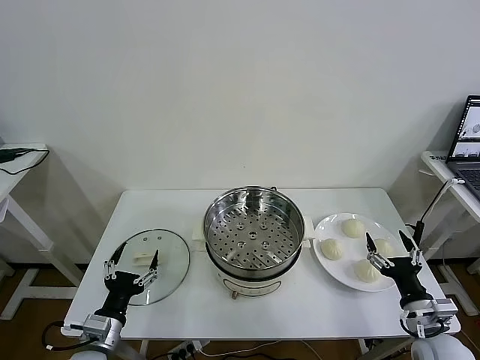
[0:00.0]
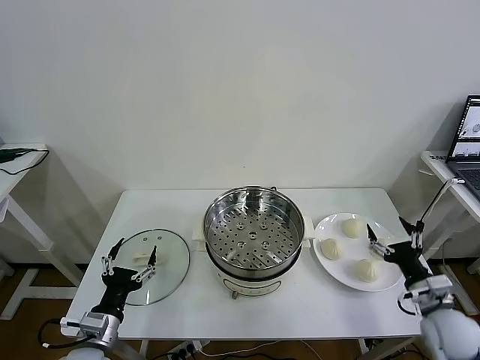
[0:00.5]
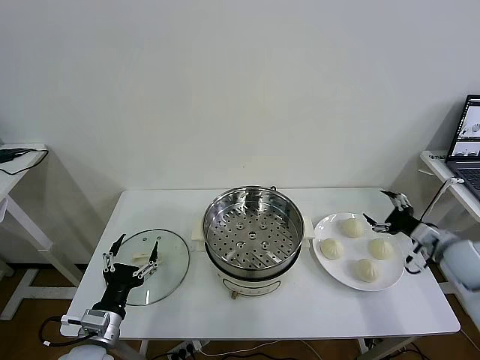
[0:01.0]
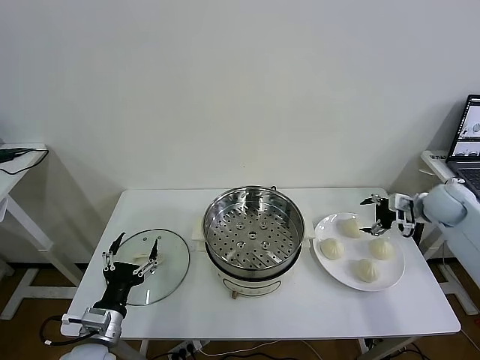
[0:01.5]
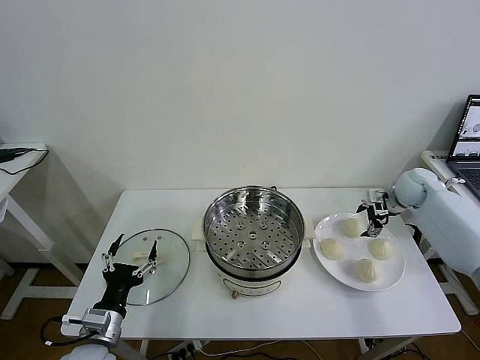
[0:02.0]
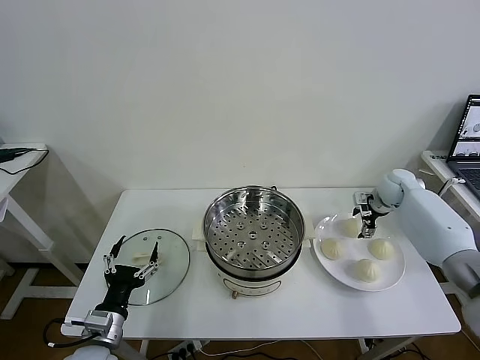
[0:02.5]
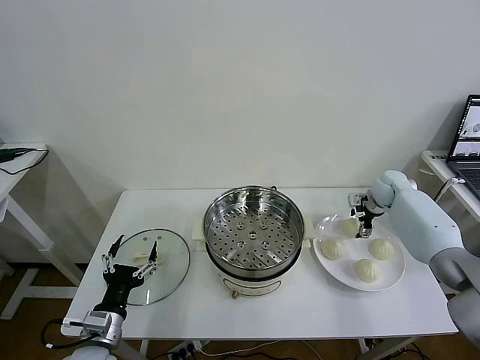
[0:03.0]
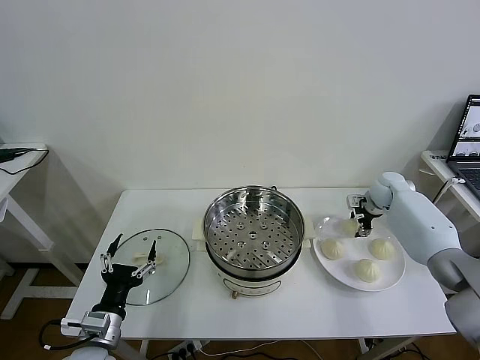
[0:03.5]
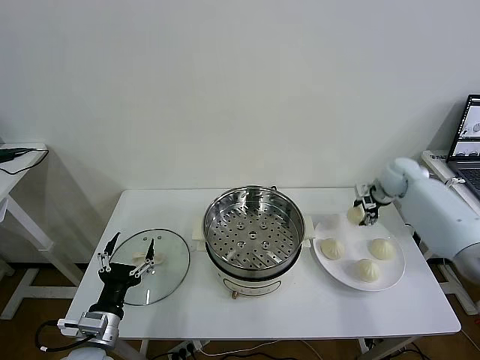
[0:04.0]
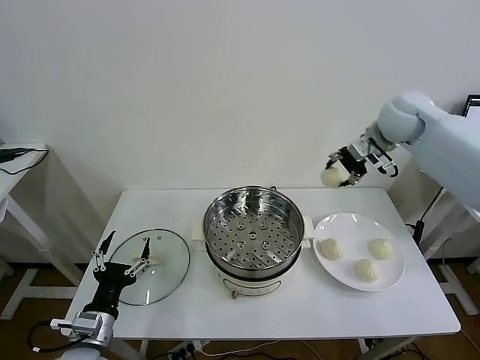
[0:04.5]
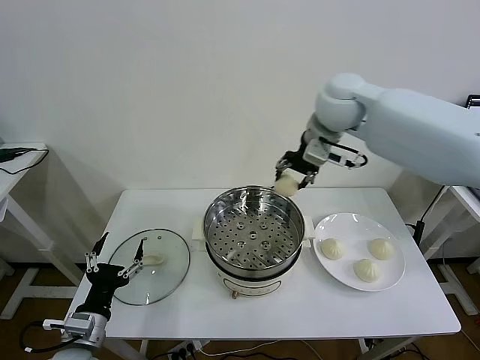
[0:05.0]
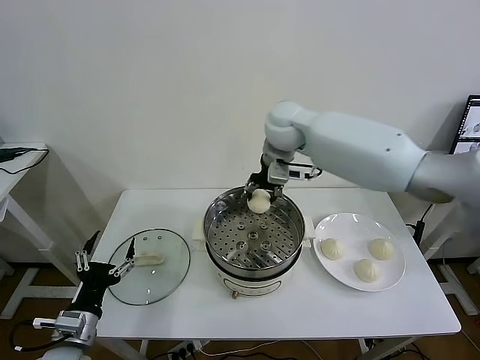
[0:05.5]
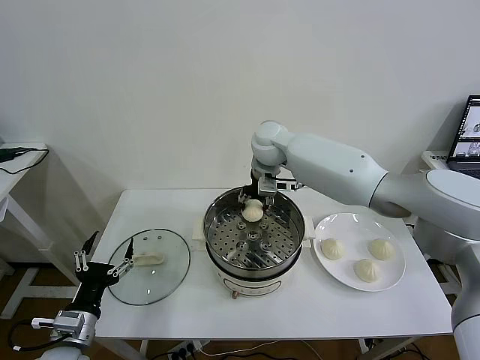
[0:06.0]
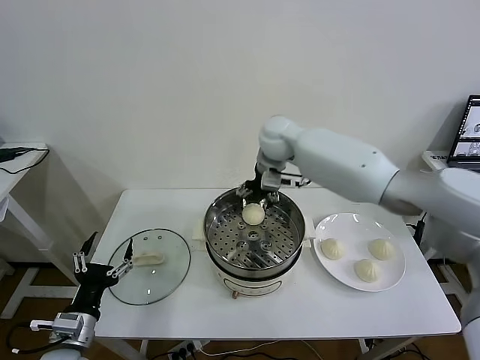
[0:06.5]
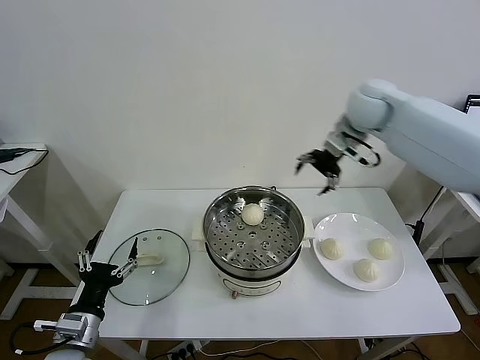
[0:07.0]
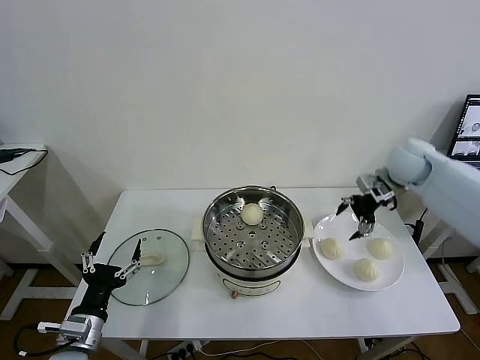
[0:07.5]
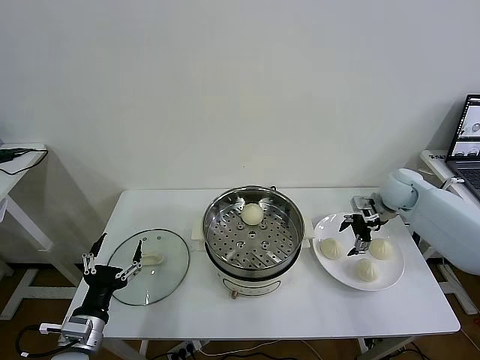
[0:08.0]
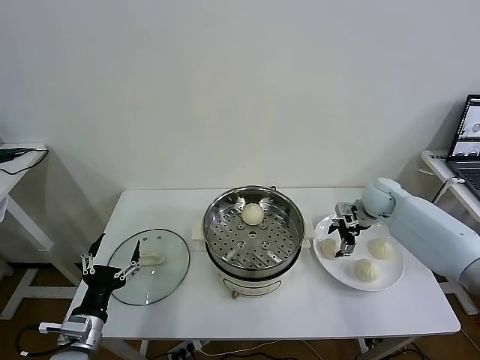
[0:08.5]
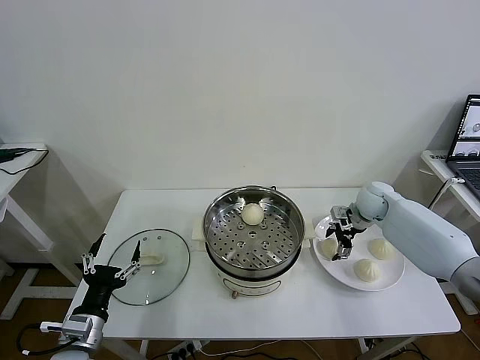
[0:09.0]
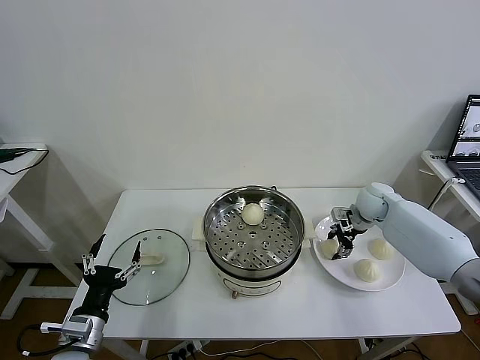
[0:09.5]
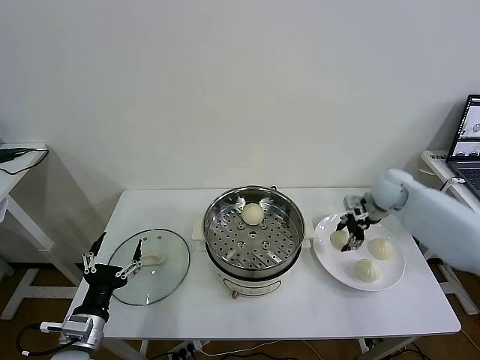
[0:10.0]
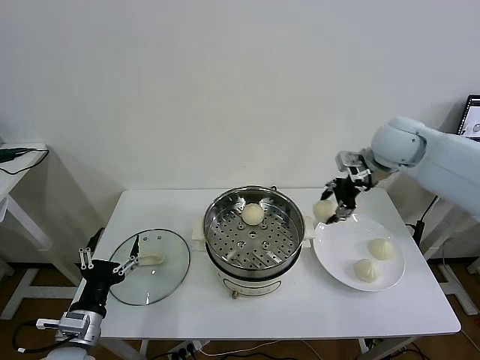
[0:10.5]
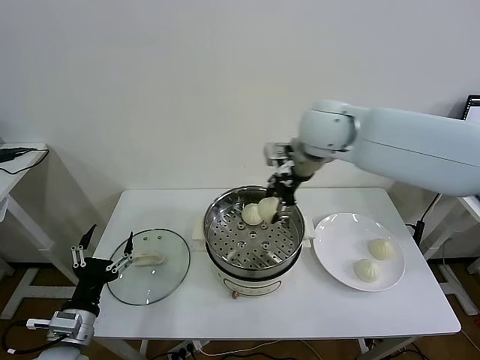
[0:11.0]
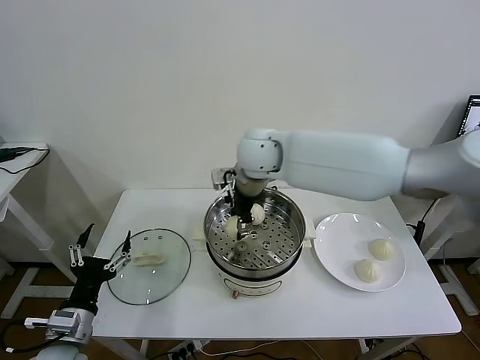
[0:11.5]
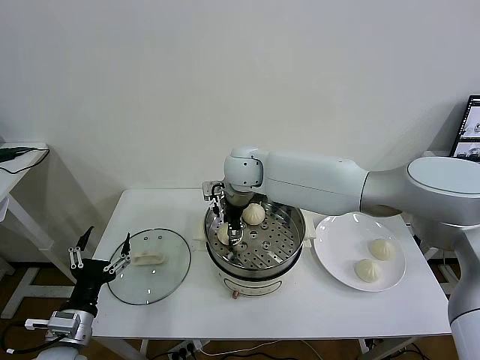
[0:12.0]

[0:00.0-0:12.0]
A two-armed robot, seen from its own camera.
Task of the whole recording: take steamed baozi put them in steamer then cover it.
Step, 0.0 to 3.0 s: Grasp the baozi in the plate with right gripper.
Step, 3.5 to 6.0 s: Place the baozi on the steamer with right gripper.
Step, 6.5 to 9.0 s: Grasp the baozi in the plate with right gripper.
2.0 to 4.0 s: The right gripper travels upward by some 5 cm, and closes its fingers.
4.0 to 6.0 s: The right gripper moves to the left, approximately 35 cm.
6.0 to 8.0 s: The right gripper moves to the right, roughly 30 cm, and opens.
8.0 to 10.0 s: The right gripper closes its fingers.
10.0 to 12.0 s: The right gripper goes some 35 cm to the left.

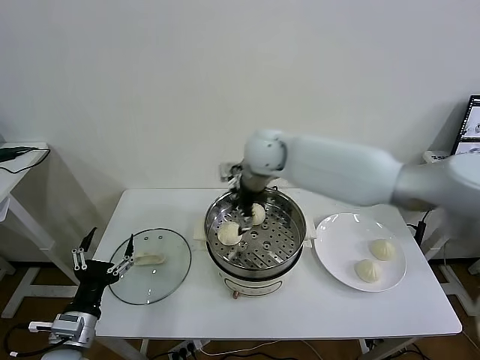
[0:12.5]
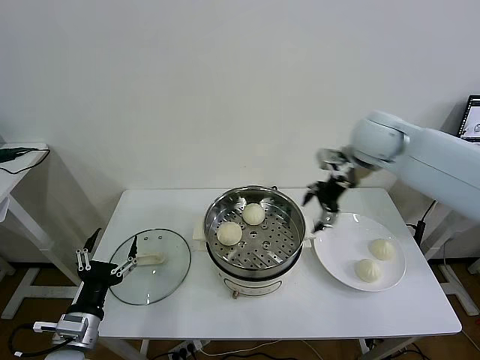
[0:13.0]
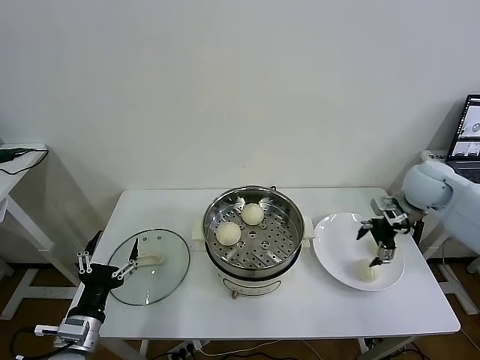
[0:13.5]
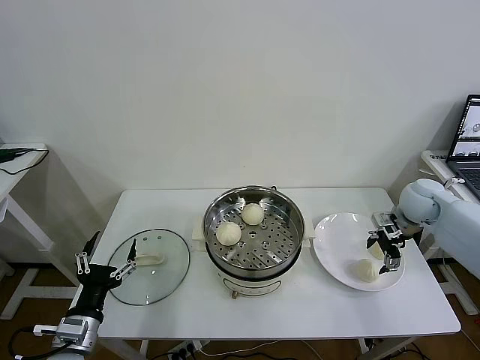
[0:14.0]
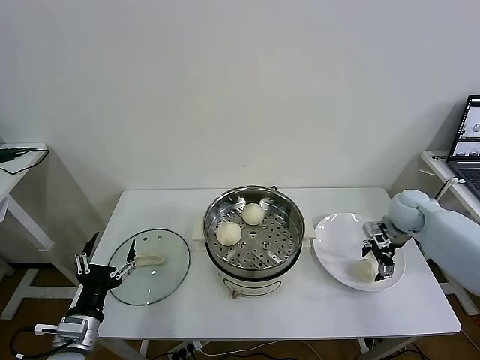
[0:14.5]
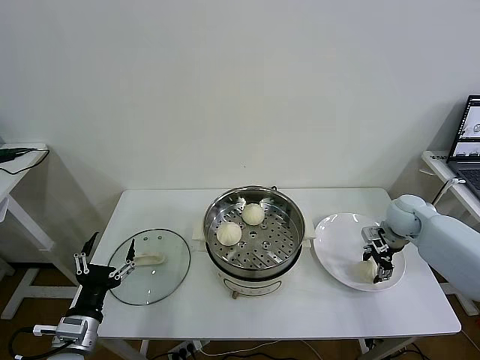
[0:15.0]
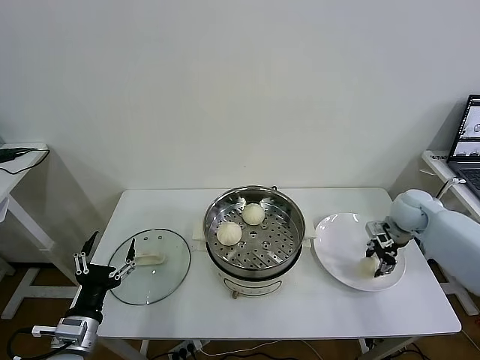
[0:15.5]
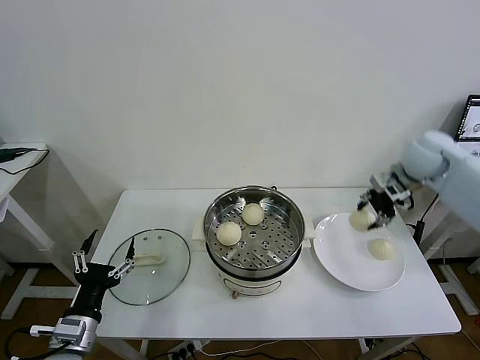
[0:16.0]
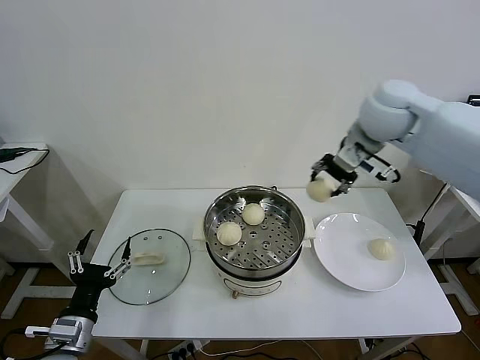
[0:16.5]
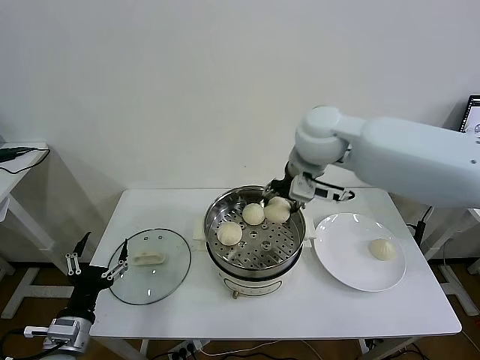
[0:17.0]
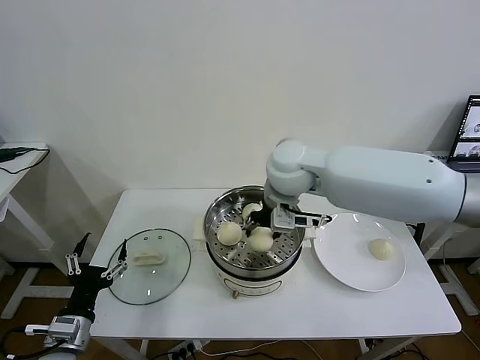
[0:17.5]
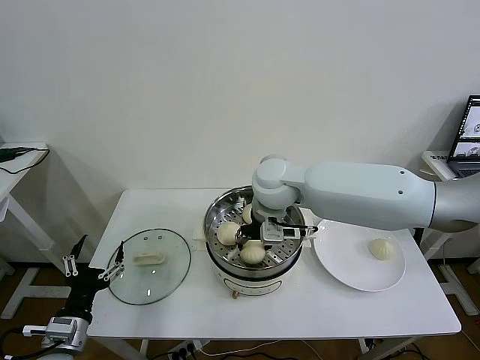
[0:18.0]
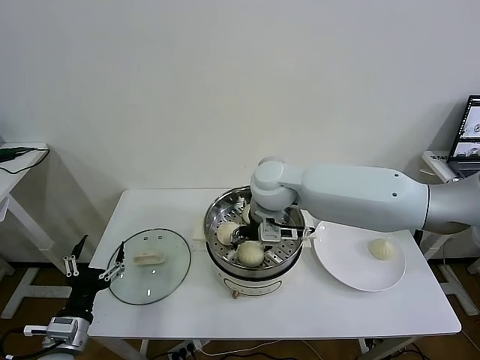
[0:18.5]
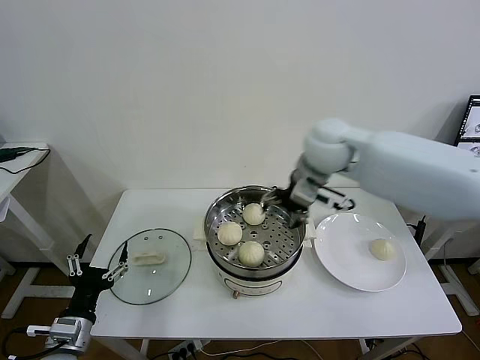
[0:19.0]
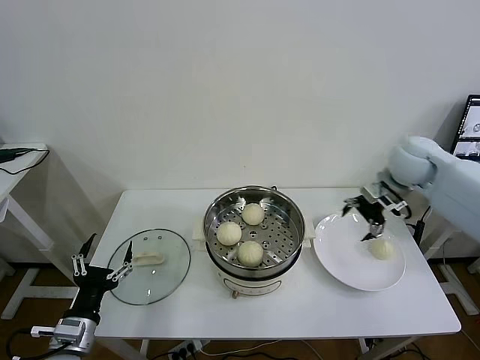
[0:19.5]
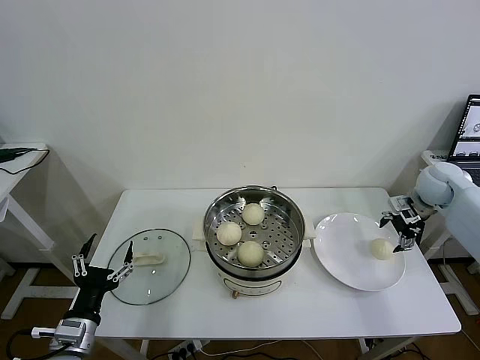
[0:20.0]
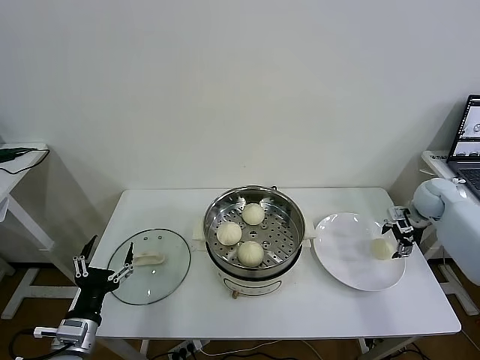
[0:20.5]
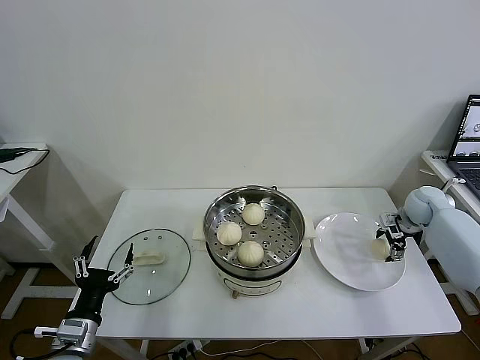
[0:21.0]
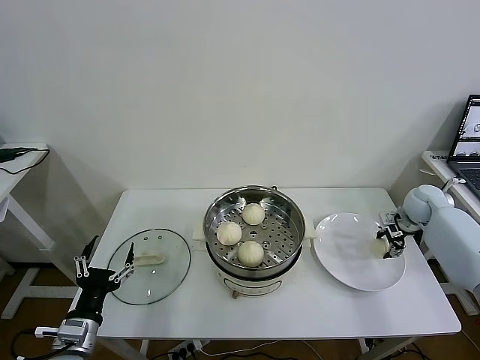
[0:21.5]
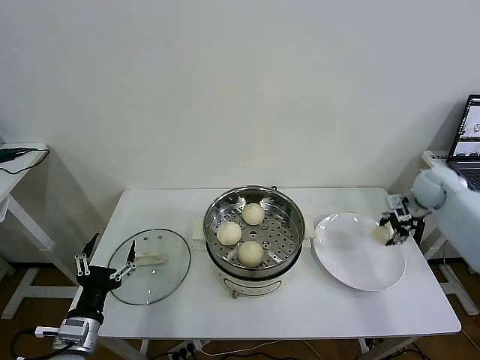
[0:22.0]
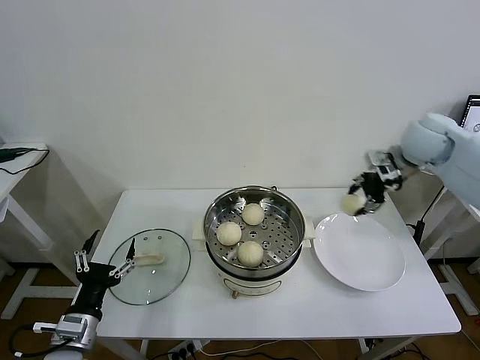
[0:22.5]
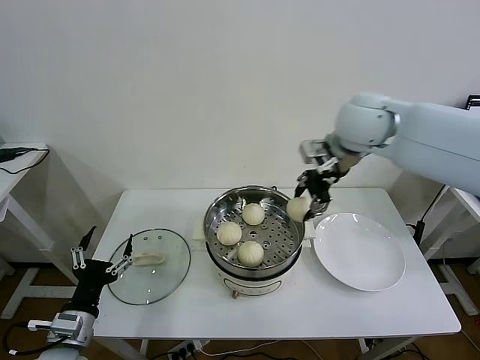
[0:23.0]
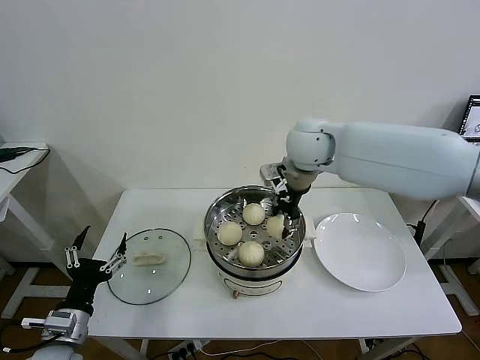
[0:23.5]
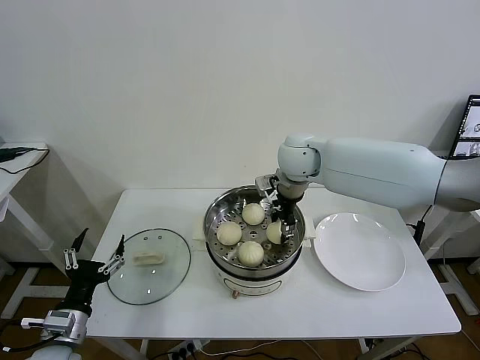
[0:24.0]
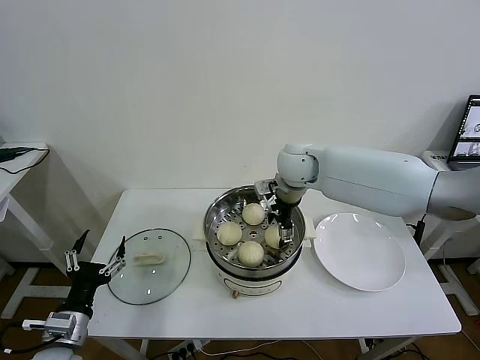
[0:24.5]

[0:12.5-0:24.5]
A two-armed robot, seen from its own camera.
Task of the whole recording: take steamed baozi put them in steamer then cover it.
Step, 12.5 to 15.0 s: Grasp the baozi in the plate with right gripper.
Step, 15.5 to 18.5 s: Place the baozi on the steamer with right gripper.
Step, 19.0 to 21.0 s: Grasp the baozi in the plate with right gripper.
Step, 22.0 to 24.5 s: Place the baozi on the steamer with right gripper.
12.5 to 14.5 s: The right gripper goes about 40 cm to the right and downward.
14.5 to 16.5 s: The right gripper shifts some 30 cm upward and to the left, and closes.
16.5 to 18.5 s: The right gripper shifts roughly 20 cm to the left and downward, and opens up.
18.5 to 20.5 s: The right gripper is displaced to the right by some 40 cm.
20.5 to 22.5 s: The right gripper shifts about 25 cm upward and to the left, and closes up.
22.5 to 24.5 s: The right gripper goes approximately 25 cm to the left, and opens.

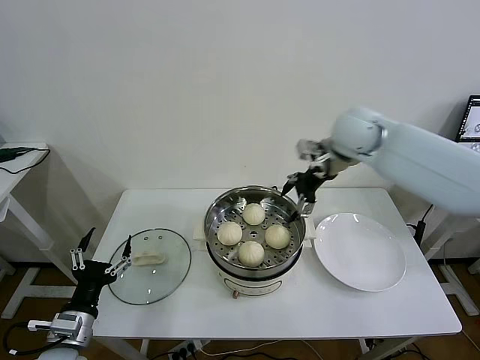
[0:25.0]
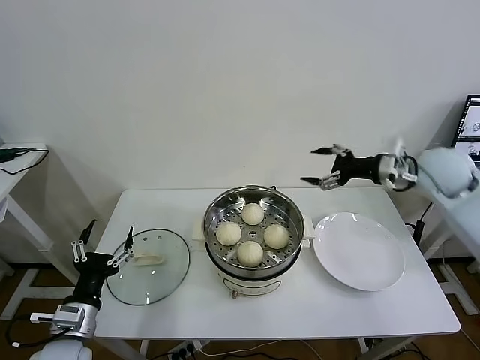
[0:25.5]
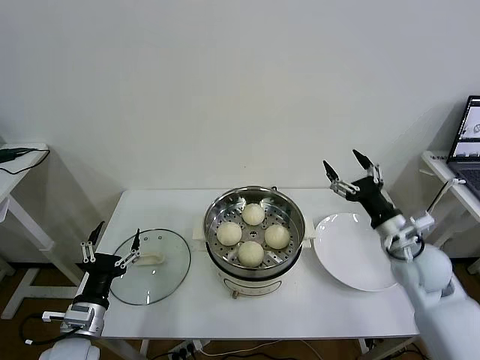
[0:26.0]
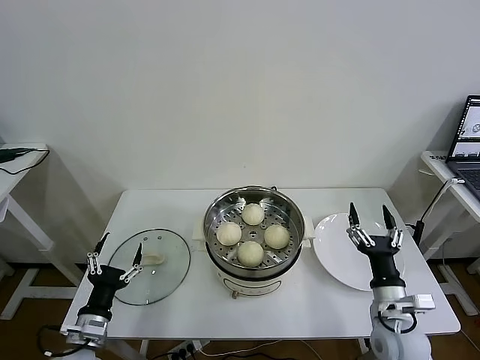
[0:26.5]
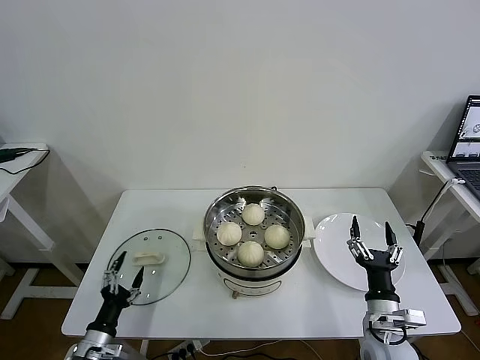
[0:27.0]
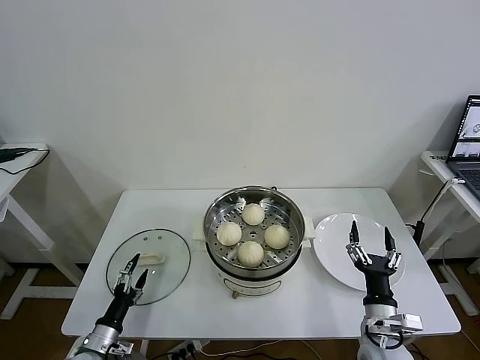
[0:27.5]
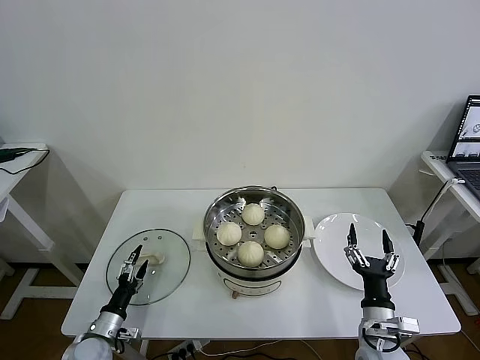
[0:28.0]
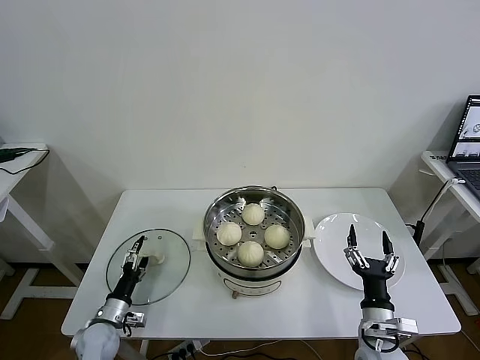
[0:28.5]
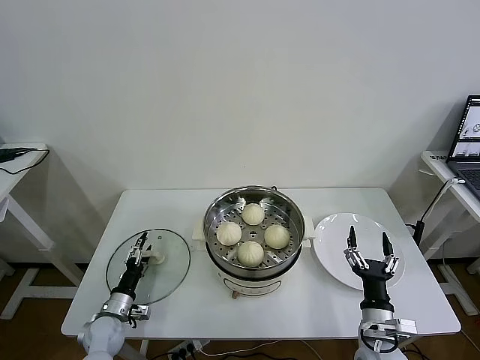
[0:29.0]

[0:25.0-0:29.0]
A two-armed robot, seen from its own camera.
Task of the whole recording: take steamed baozi put them in steamer then cover it.
25.0 to 27.0 s: The right gripper moves downward and backward, about 50 cm, while the left gripper travels downward by about 10 cm.
27.0 to 29.0 s: The left gripper travels forward and downward by roughly 10 cm.
